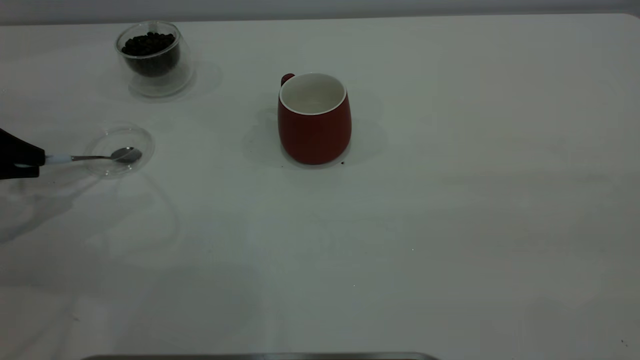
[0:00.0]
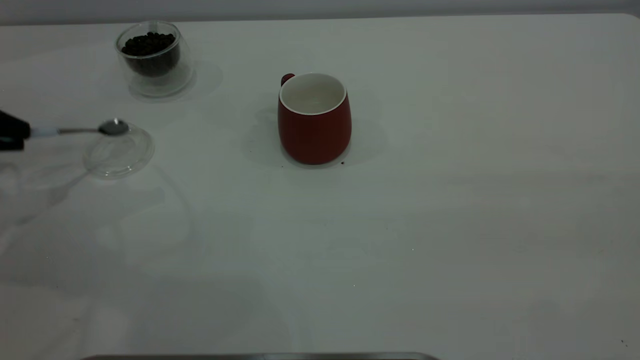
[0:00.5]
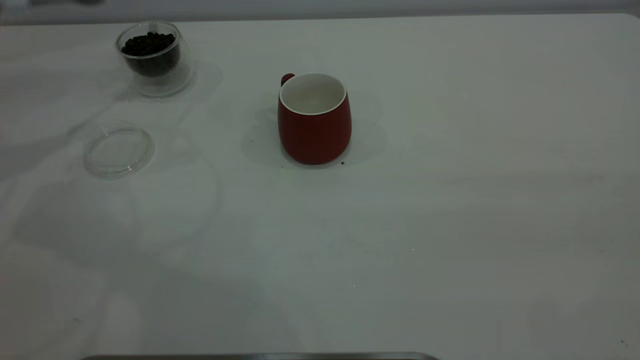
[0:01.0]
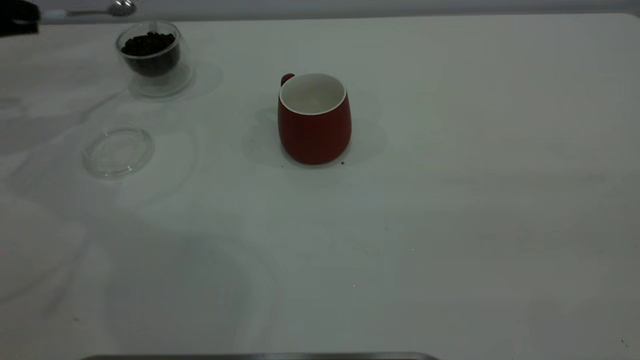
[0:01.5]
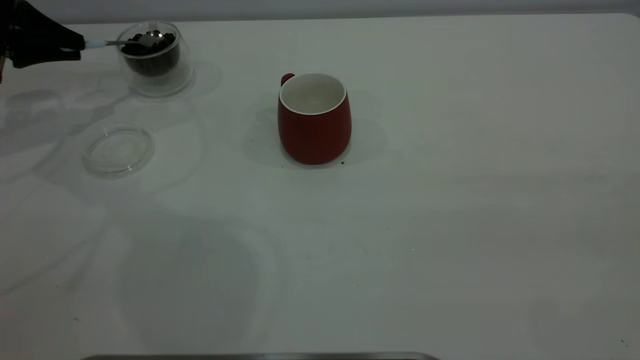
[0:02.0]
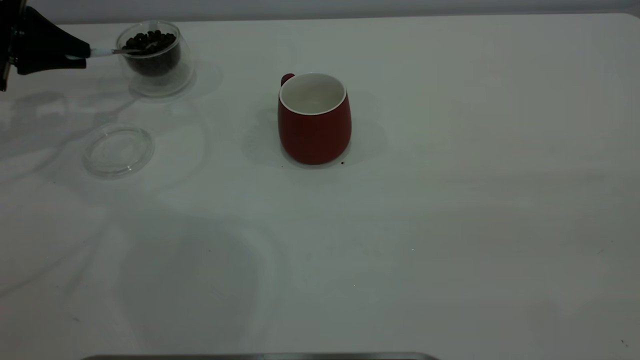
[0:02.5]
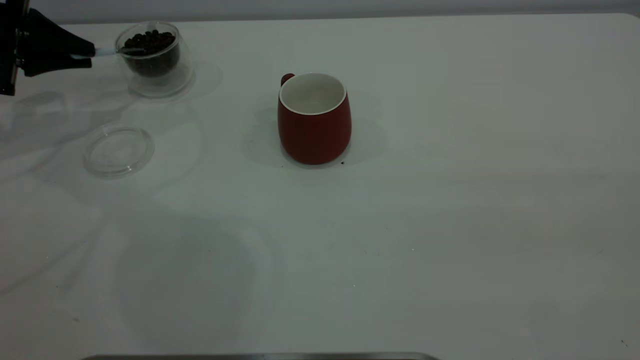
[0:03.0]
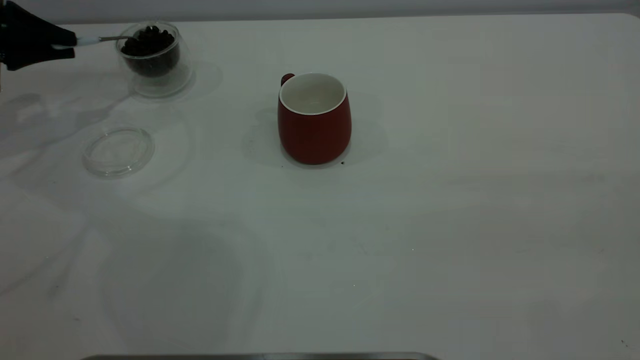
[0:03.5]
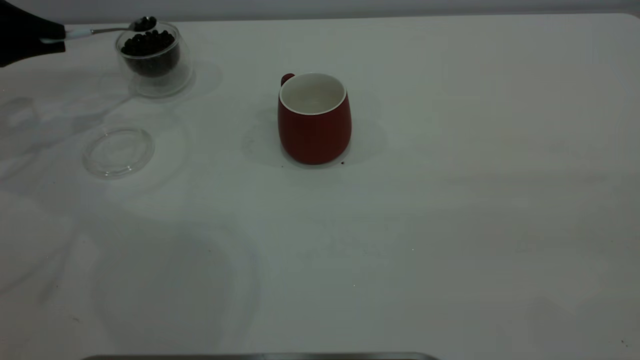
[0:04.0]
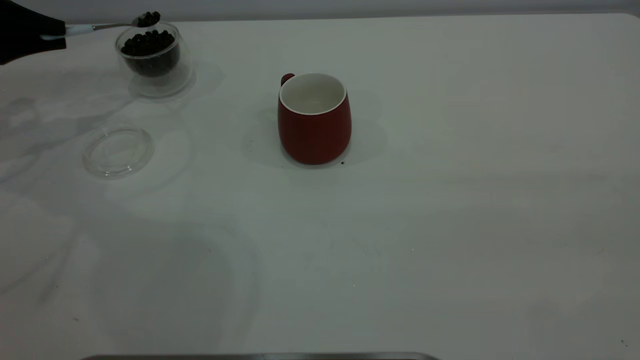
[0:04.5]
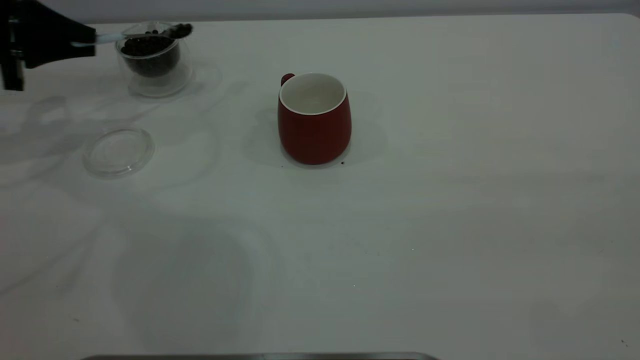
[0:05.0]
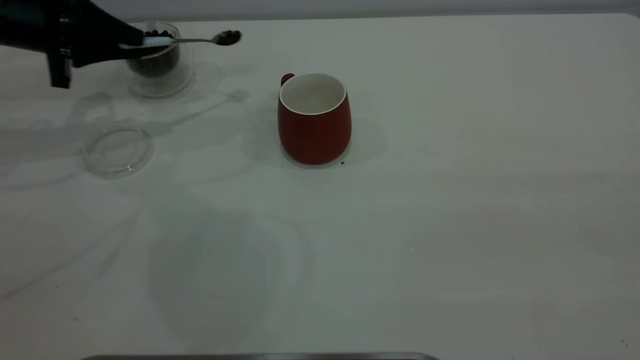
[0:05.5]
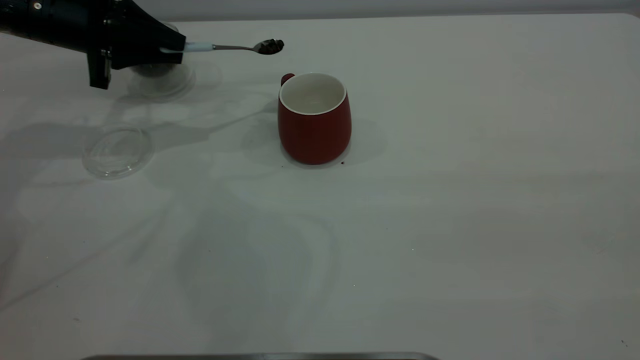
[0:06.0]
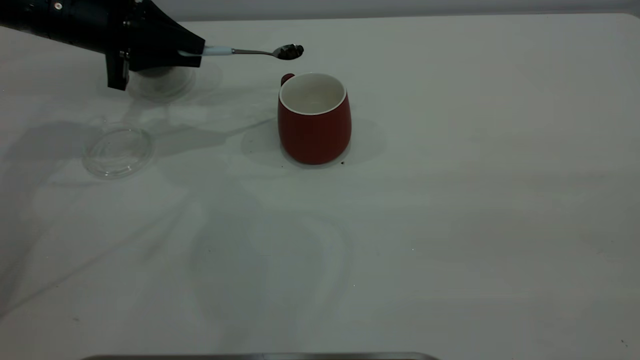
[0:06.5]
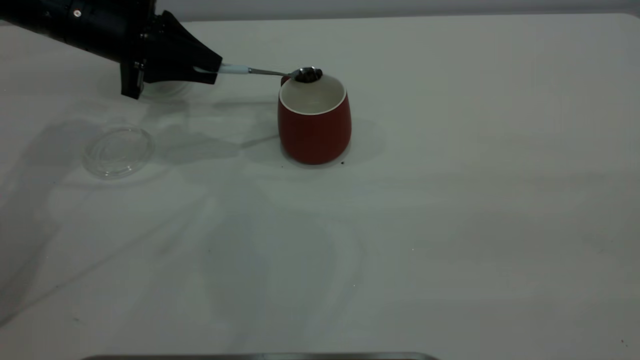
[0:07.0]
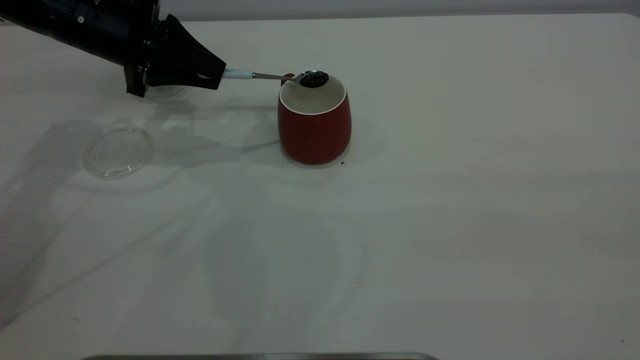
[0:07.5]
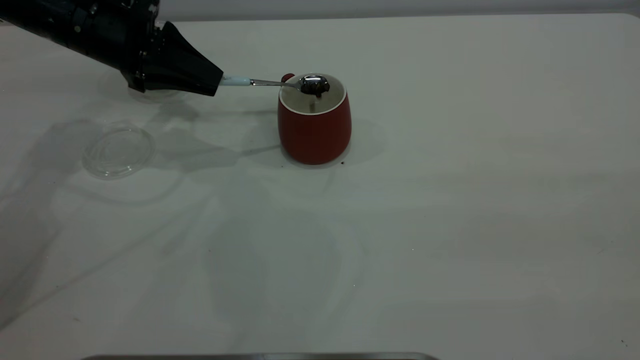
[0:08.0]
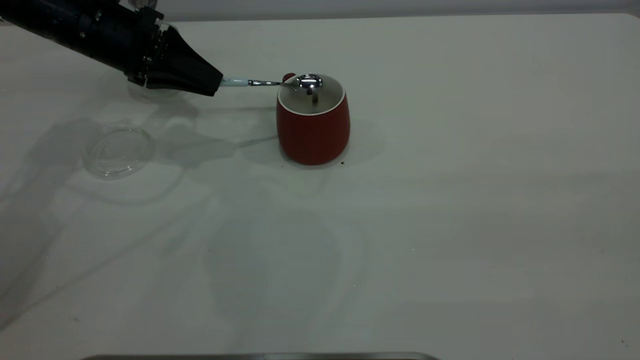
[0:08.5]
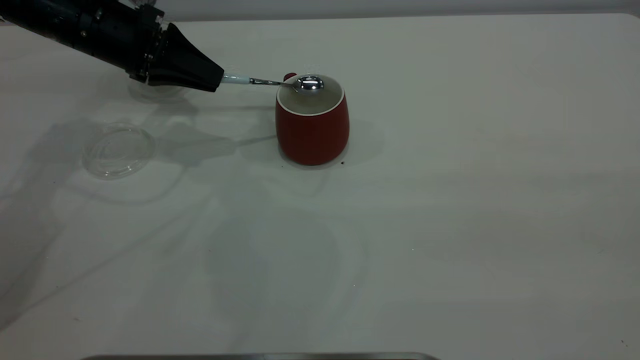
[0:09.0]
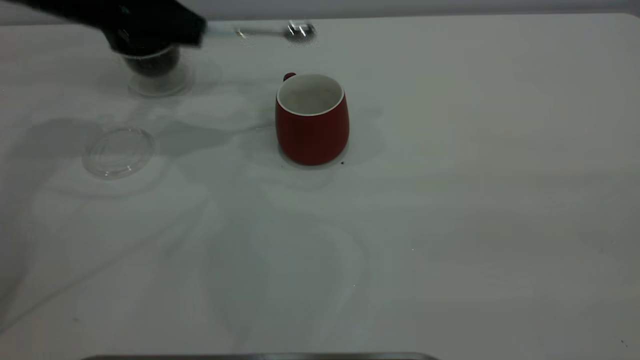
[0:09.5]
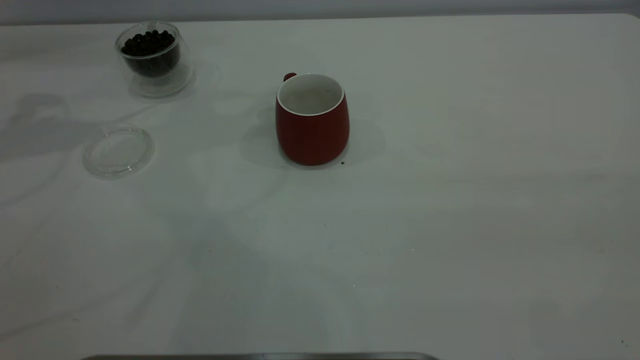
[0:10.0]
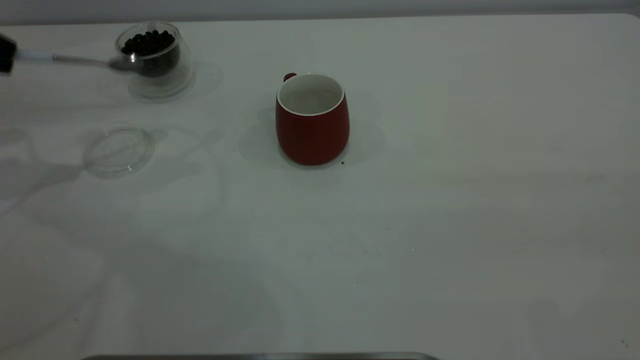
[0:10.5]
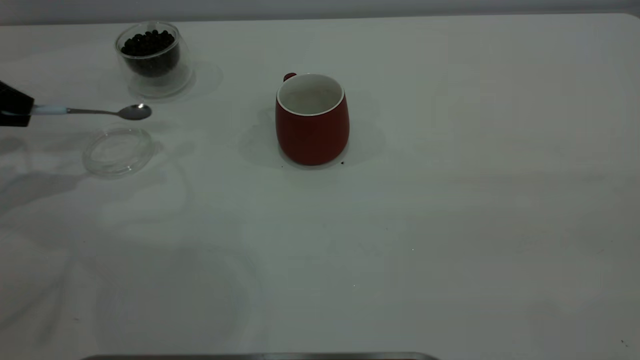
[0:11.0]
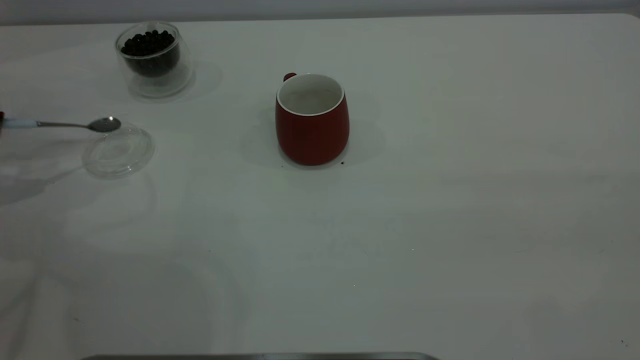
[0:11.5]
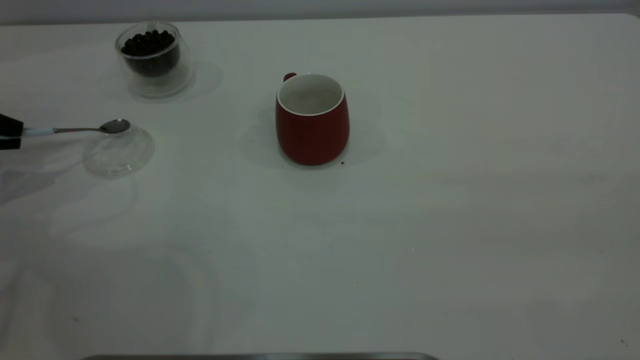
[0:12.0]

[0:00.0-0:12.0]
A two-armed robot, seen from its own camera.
Task of the whole recording: the right gripper place the red cup in the center of the table, the left gripper take the blue spoon from the cup lid and scoop out the coffee beans from the coffee cup and put them into the red cup, the left gripper put the spoon back into the cup lid.
Step, 0:01.0 to 0:09.0: Scoop a spoonful of beans into the cup.
0:00.0 to 0:02.0: The left gripper is displaced forward by some 15 cm.
0:02.0 to 0:04.0: The grippers stay close to where they were, moving slightly.
0:04.0 to 0:06.0: The left gripper travels to the right by roughly 15 cm.
0:08.0 to 0:10.0: The left gripper moves to the left and upward, approximately 20 cm.
0:10.0 to 0:12.0: The left gripper heads downward and backward, covering some 20 cm.

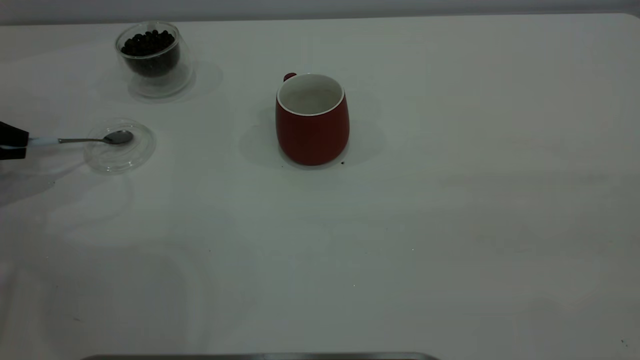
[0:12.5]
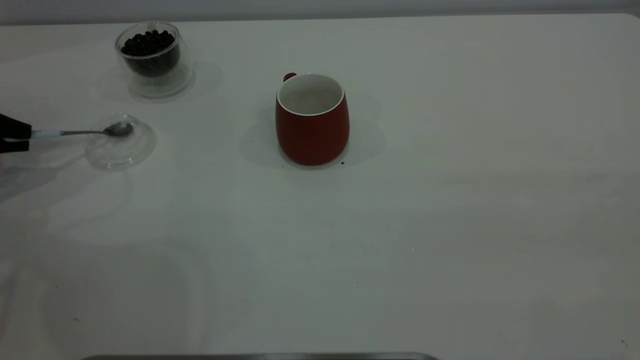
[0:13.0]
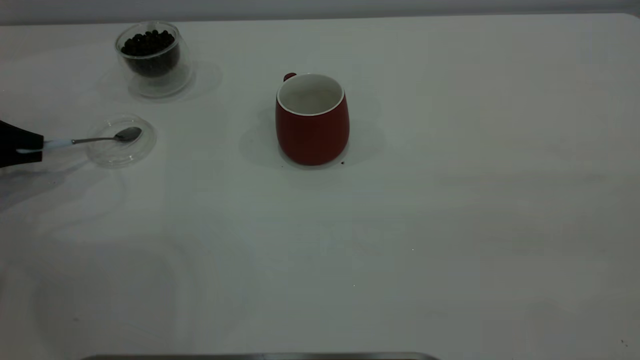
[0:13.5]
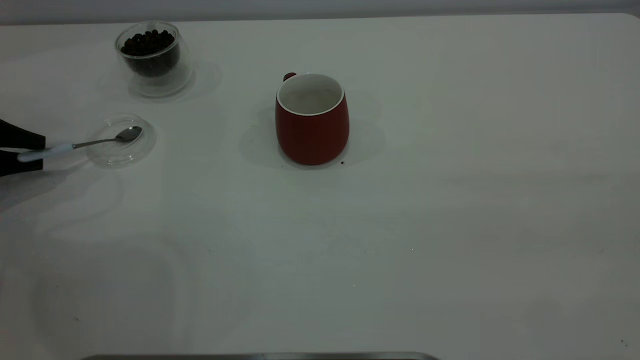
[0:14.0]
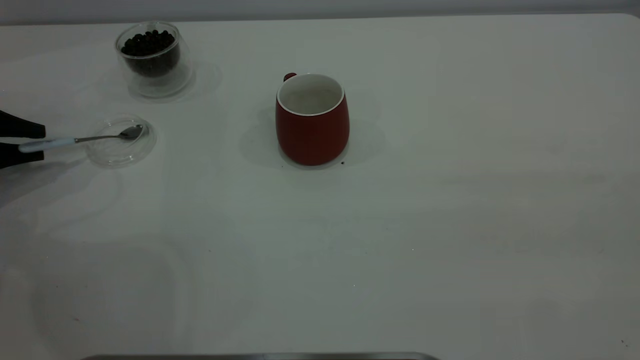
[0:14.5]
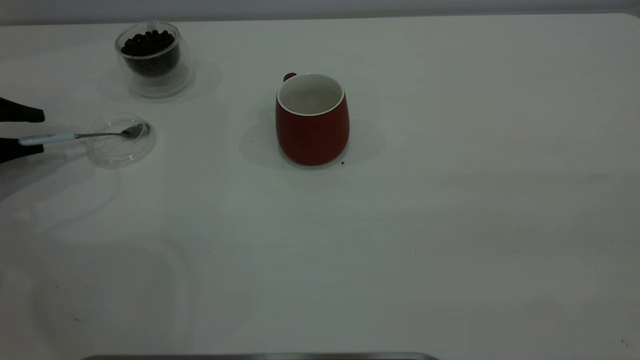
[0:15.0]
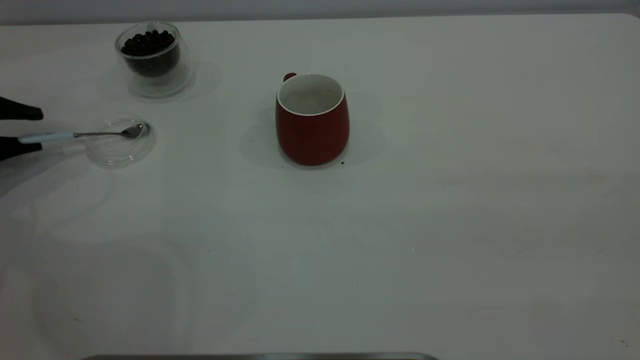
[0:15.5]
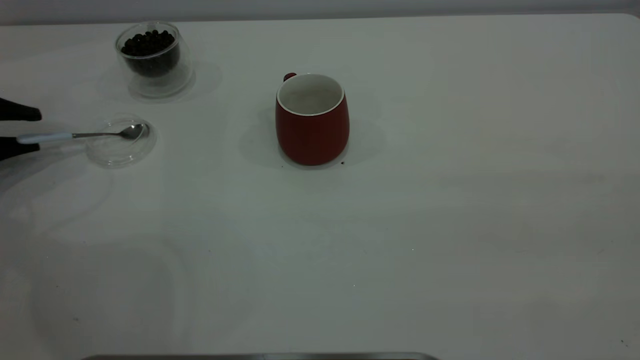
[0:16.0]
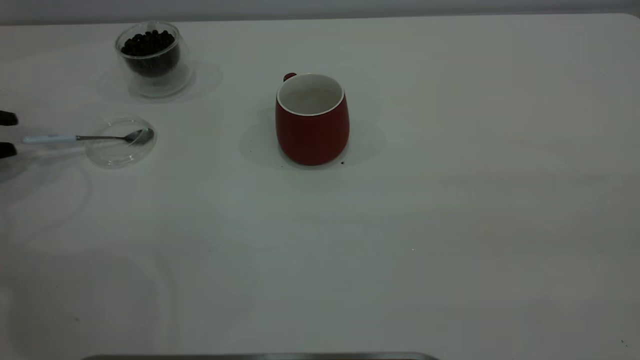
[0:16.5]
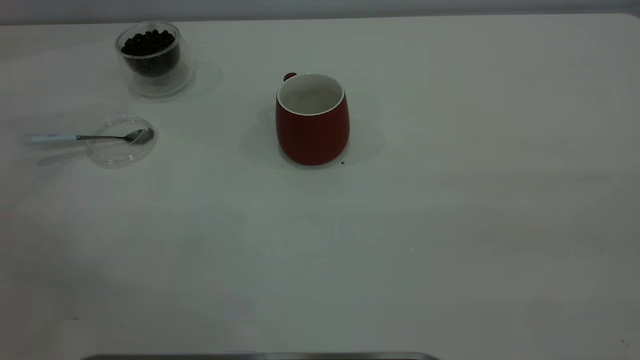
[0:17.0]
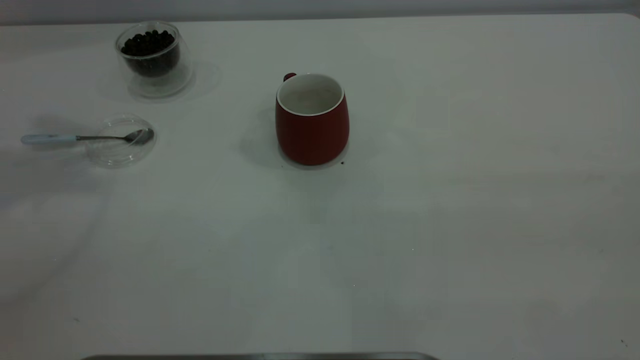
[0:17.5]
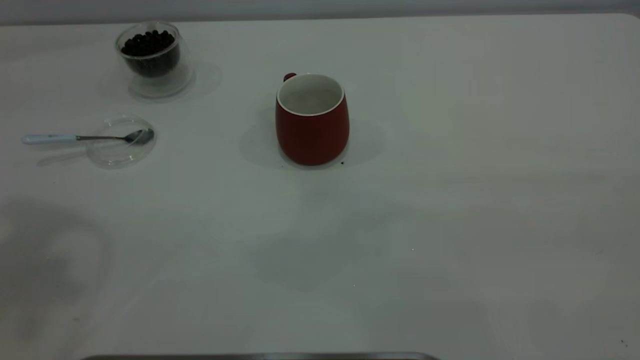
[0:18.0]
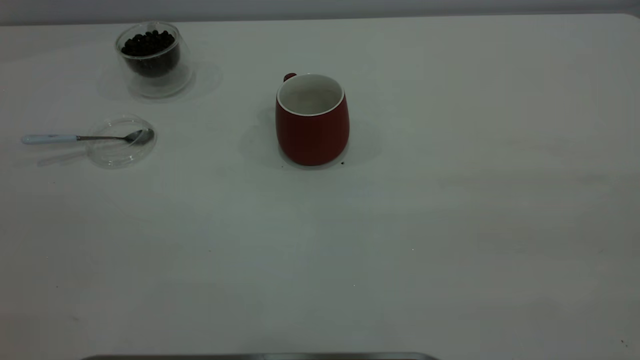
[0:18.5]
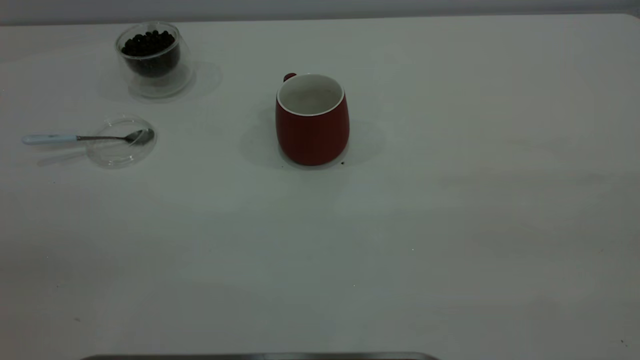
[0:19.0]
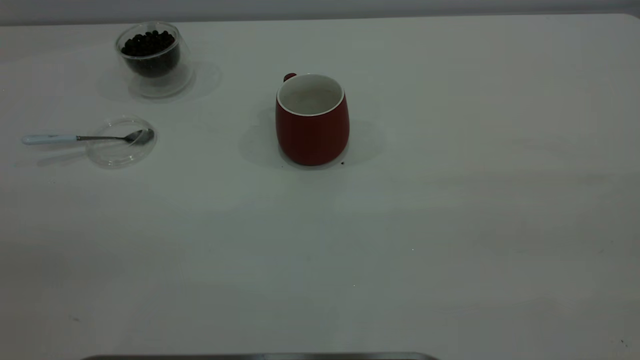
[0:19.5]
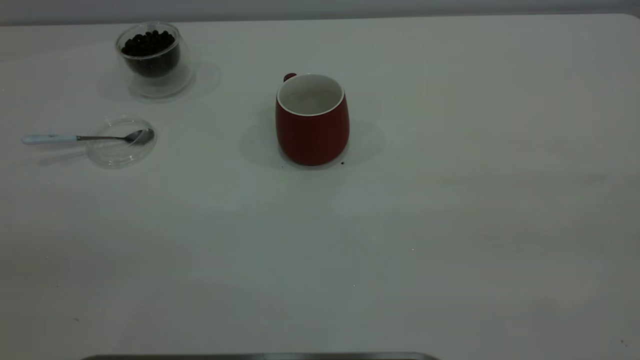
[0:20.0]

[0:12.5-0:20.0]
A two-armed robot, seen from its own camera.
Task of the whole recording: the right gripper place the red cup in the center of the table, the left gripper take the blue spoon from the cup lid and scoop out the coffee beans from the coffee cup and put them into the red cup, the left gripper put the spoon back into the cup lid.
Step, 0:12.5 to 0:16.0: Place the spoon back in its original place.
0:12.5 to 0:14.5: The left gripper opens up.
0:14.5 to 0:16.5: The grippers stay close to where they were, moving slightly.
0:16.5 to 0:18.0: The left gripper moves upward and to the right, roughly 40 cm.
